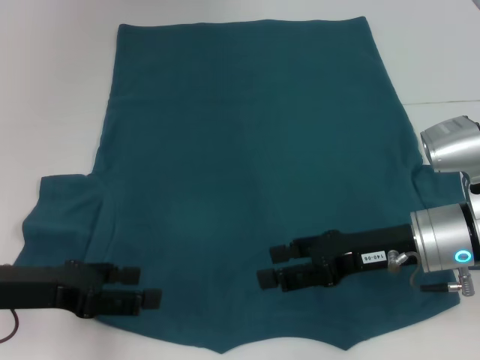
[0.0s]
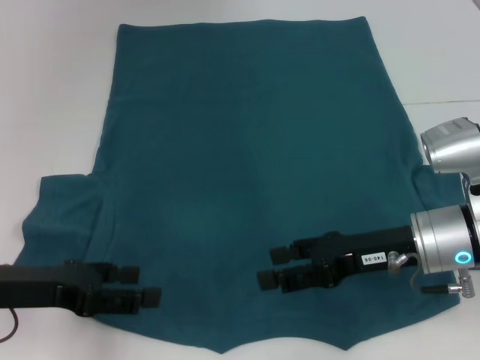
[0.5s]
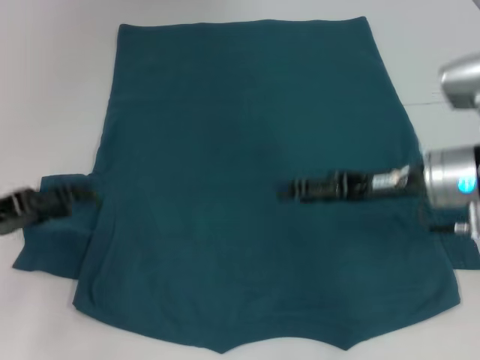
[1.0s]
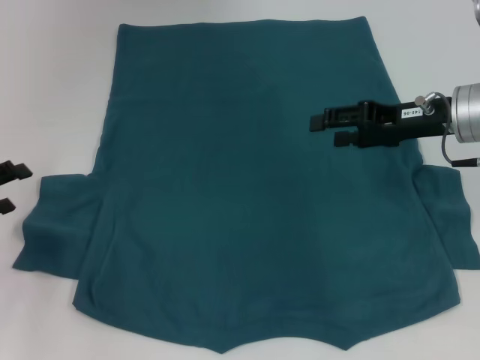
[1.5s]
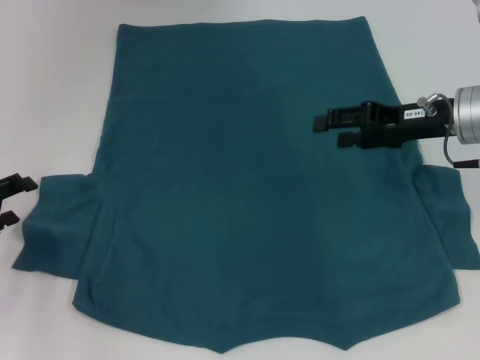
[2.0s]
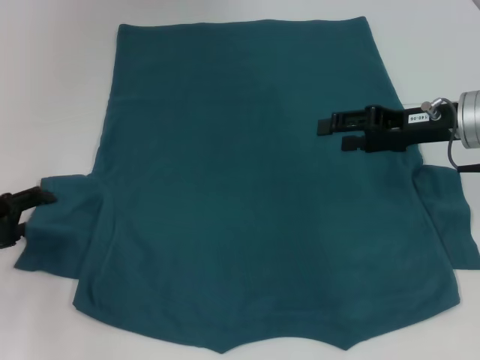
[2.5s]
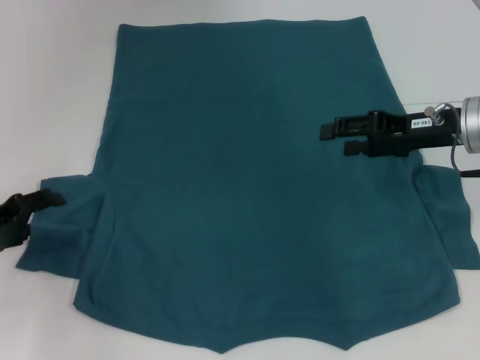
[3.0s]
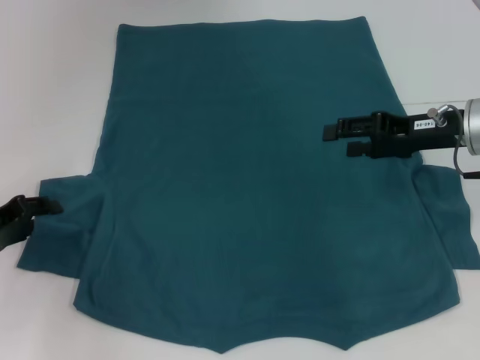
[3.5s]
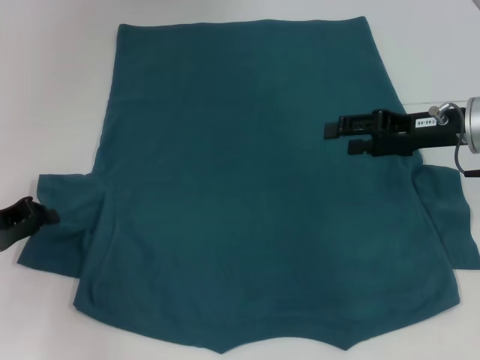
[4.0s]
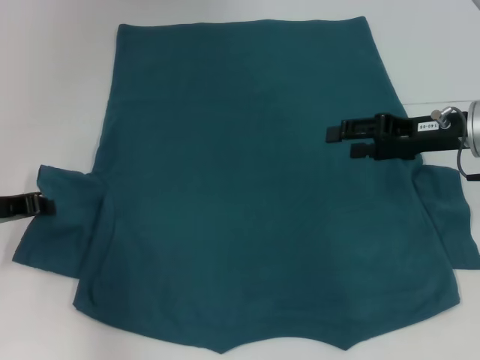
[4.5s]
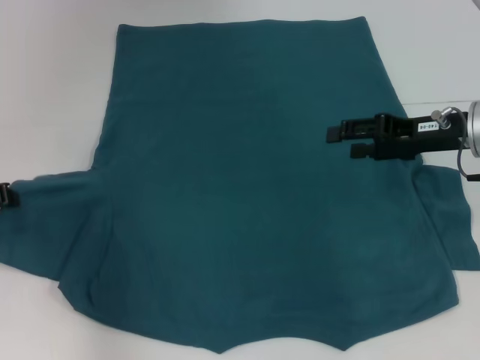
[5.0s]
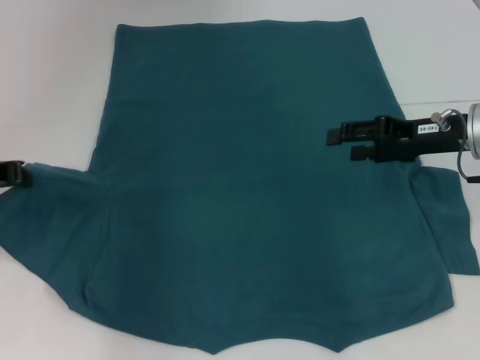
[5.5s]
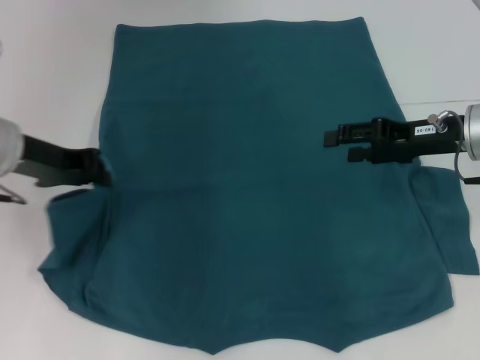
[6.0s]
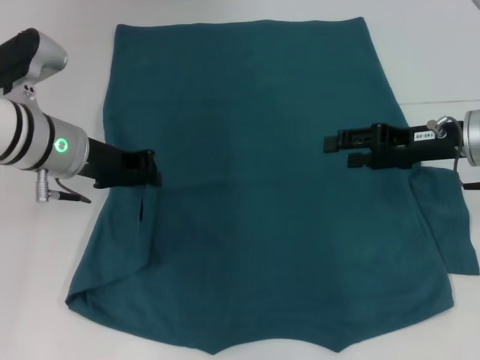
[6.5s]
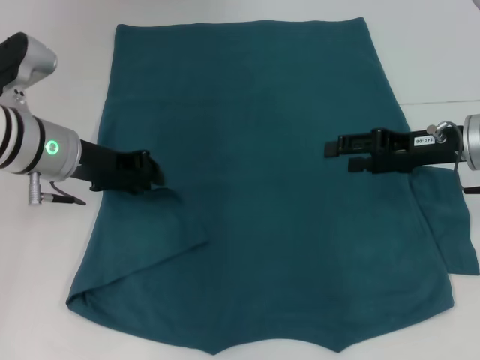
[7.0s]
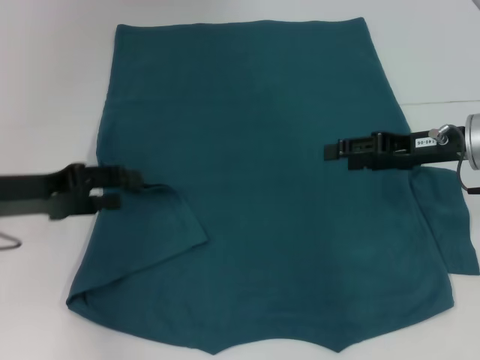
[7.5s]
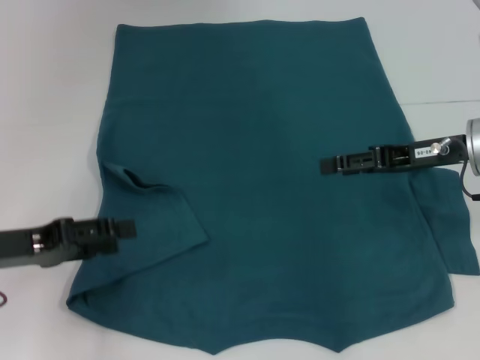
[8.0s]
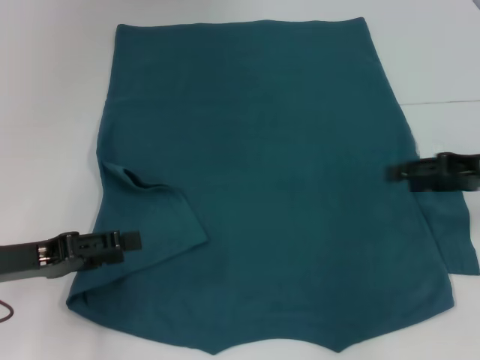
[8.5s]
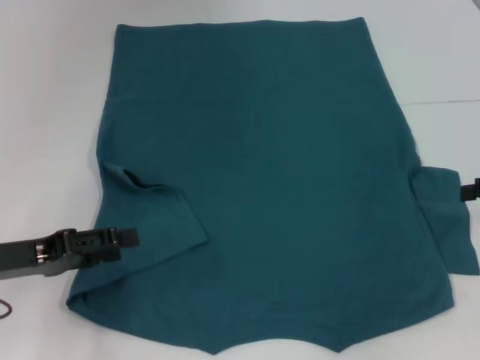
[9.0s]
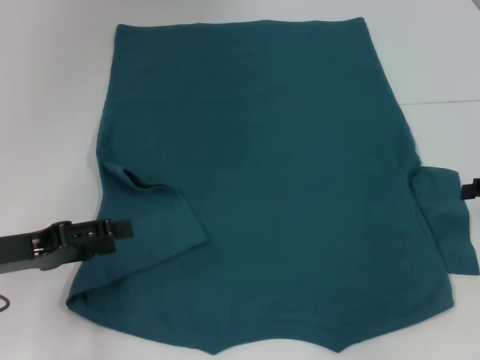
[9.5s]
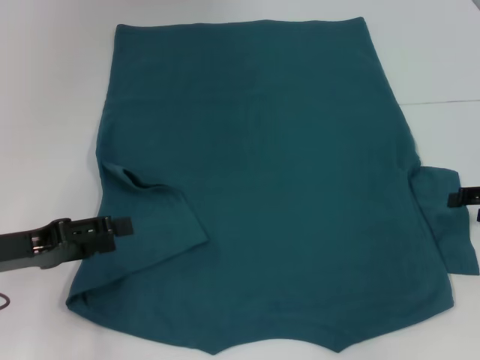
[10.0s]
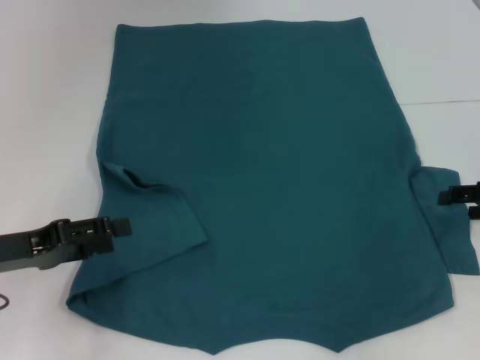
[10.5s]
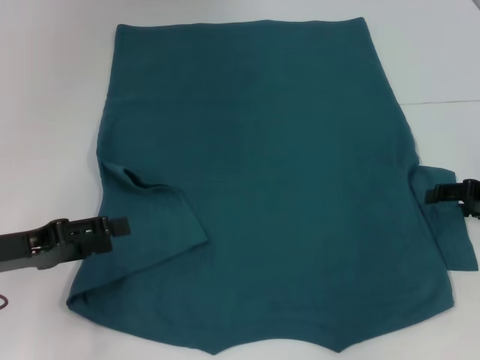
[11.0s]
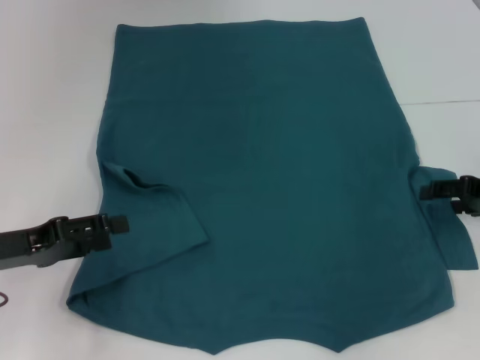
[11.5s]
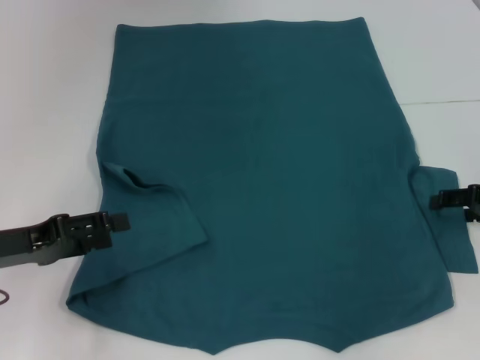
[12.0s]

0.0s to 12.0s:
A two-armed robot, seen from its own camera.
Step, 0.0s to 7.0s: Fold the bottom left sleeve with your left hand.
0.0s to 2.0s: The right gripper moves forward, upward and to the right, approximately 10 cm; the left gripper moves to the left, about 10 cm.
2.0s to 4.0s: The left gripper closes up.
4.0s to 6.0s: The left gripper goes about 15 cm upward and to the right.
6.0s to 8.0s: The left gripper moves backward, downward and to the left, roughly 10 cm, and opens up.
8.0s to 10.0s: The right gripper travels to the right by about 10 cm.
10.0s to 12.0s: The grippers make only small movements.

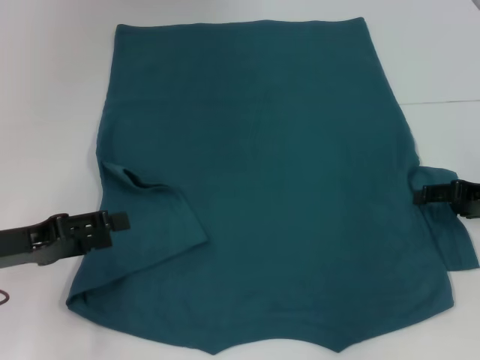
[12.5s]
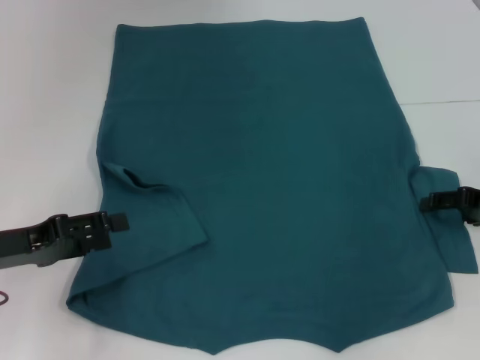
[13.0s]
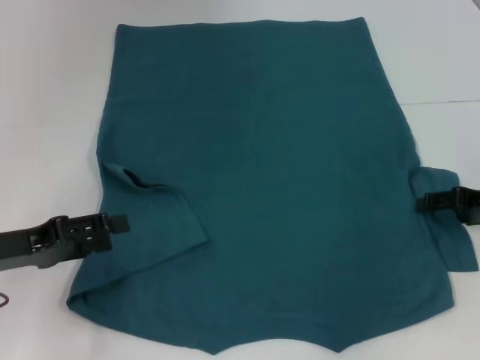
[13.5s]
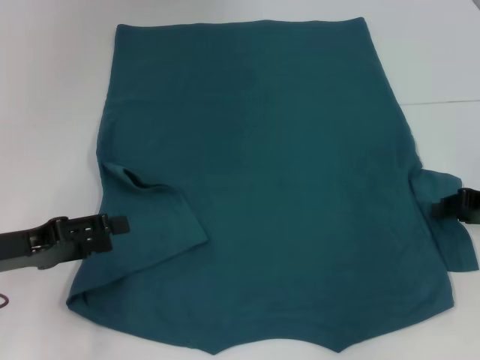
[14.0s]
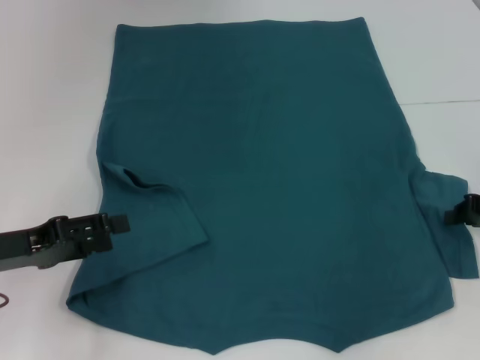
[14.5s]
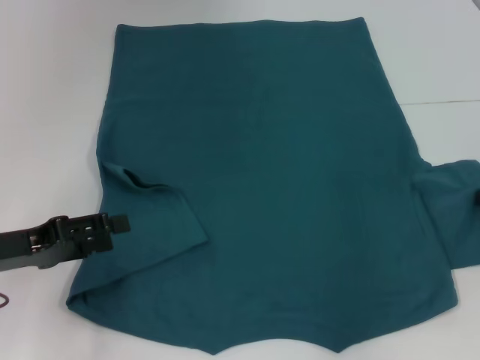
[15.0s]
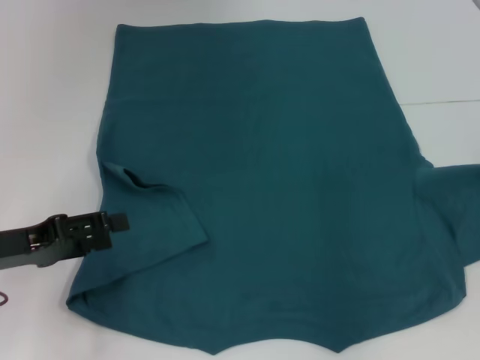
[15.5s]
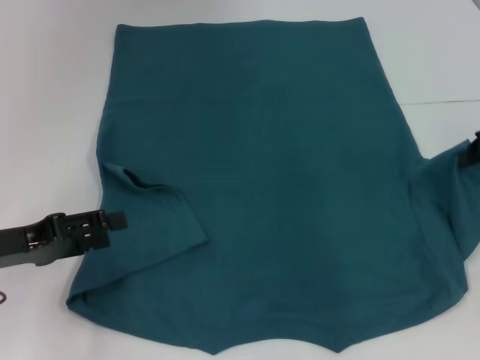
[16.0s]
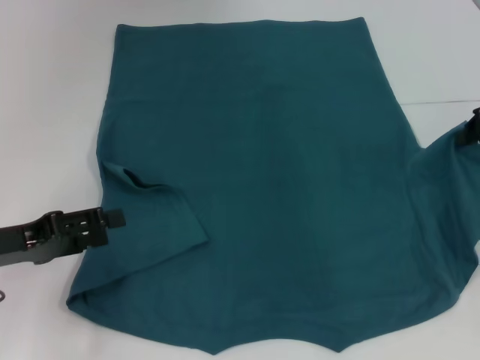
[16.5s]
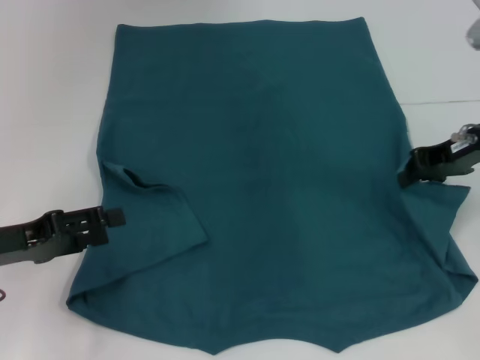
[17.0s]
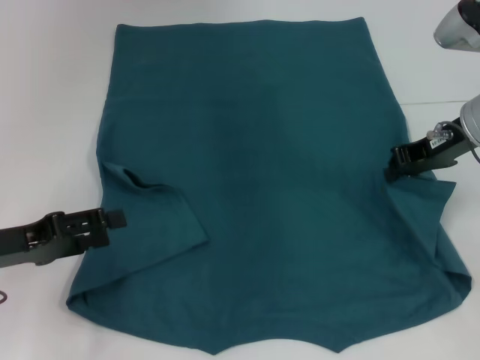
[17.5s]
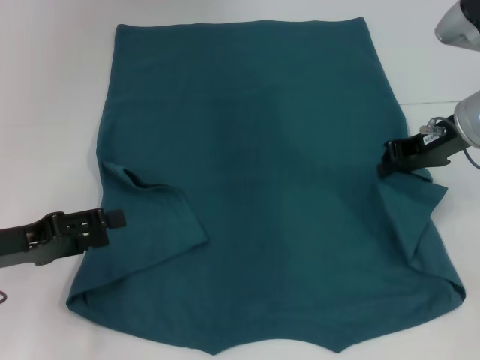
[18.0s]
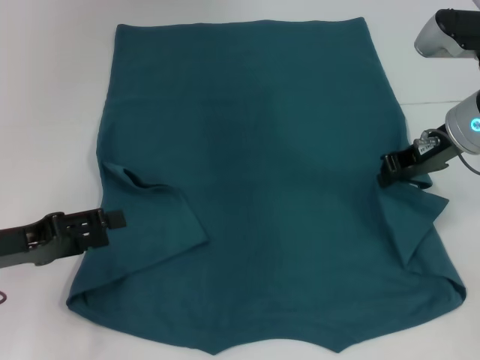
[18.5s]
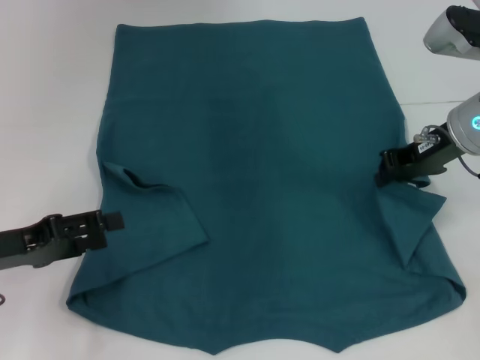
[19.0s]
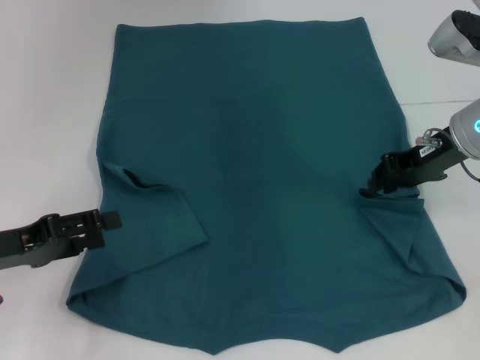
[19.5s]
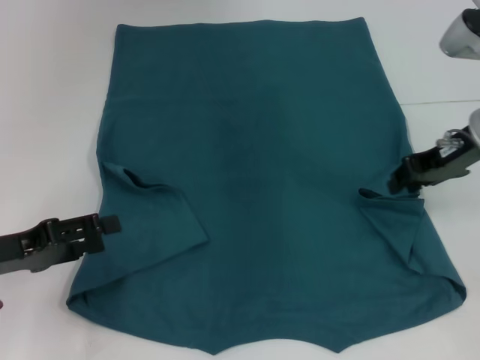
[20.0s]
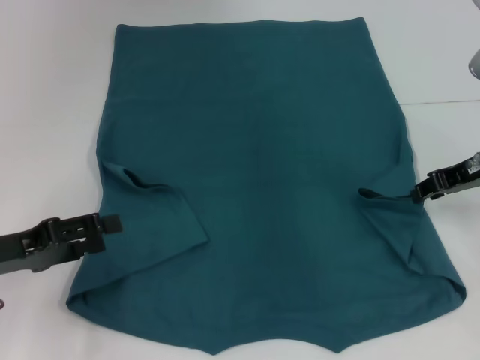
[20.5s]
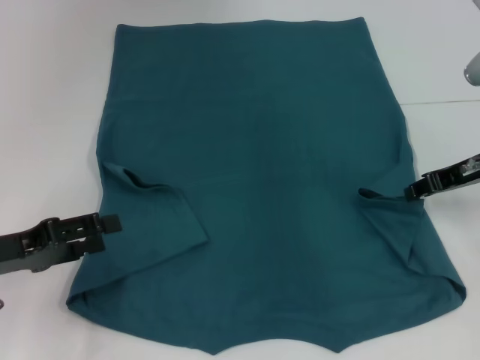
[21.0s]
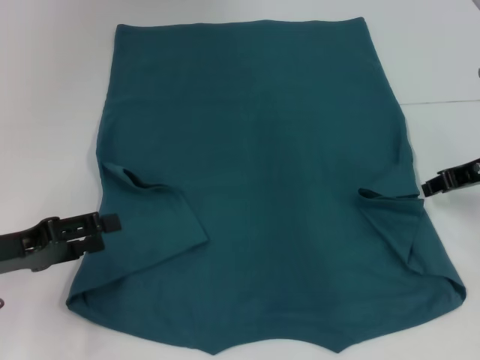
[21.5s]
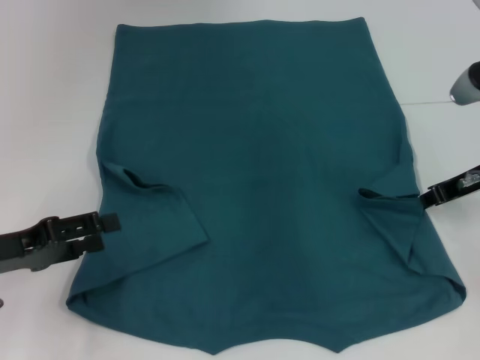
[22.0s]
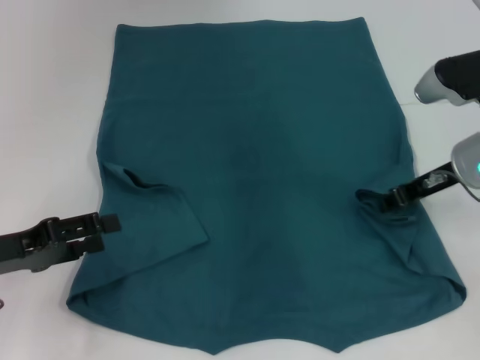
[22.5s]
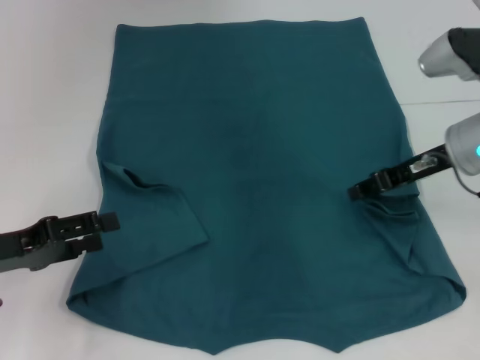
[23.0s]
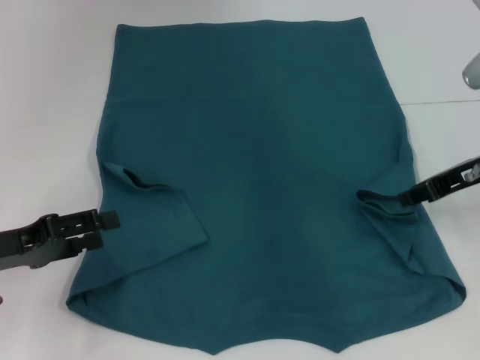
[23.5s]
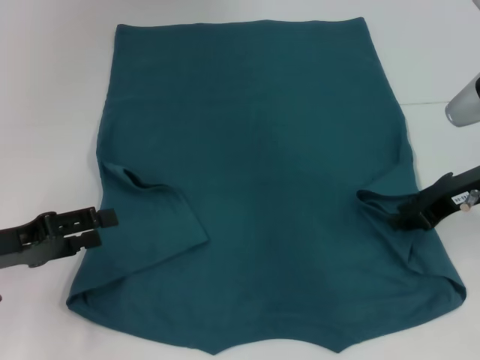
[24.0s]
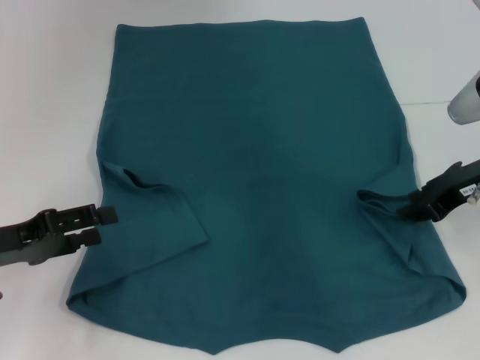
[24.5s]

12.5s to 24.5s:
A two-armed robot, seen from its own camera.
12.5s to 14.5s: The right gripper closes its fingers.
14.5s to 16.5s: The right gripper shifts approximately 10 cm upward.
16.5s to 18.5s: The right gripper travels to the left by about 10 cm.
18.5s to 20.5s: The right gripper moves to the right, roughly 5 cm, and opens up.
20.5s to 22.5s: The grippers move only a little.

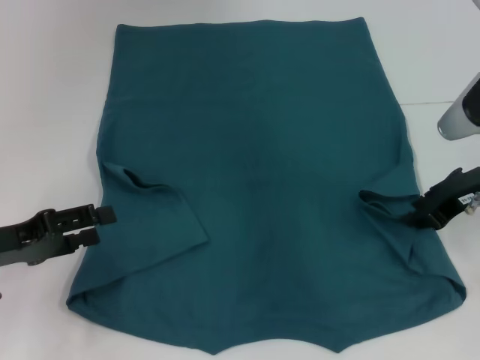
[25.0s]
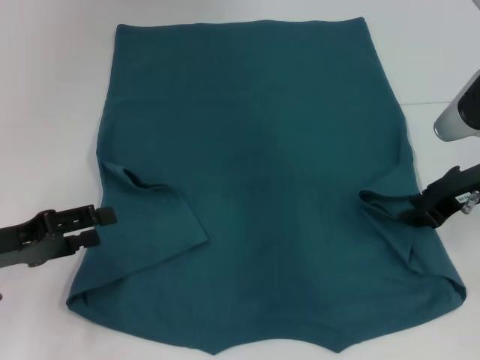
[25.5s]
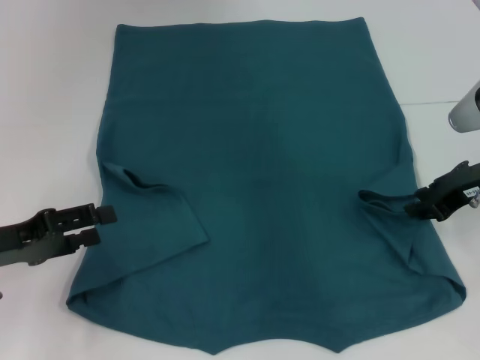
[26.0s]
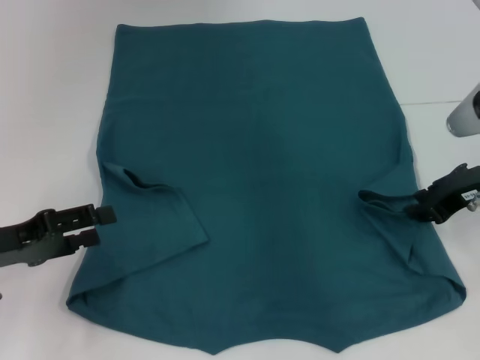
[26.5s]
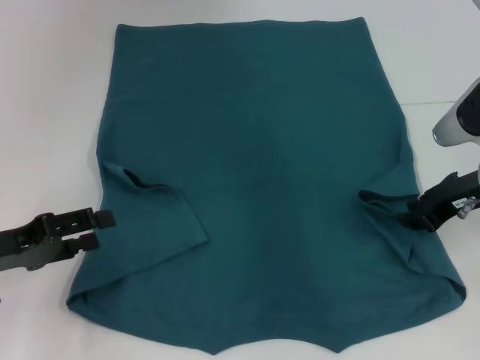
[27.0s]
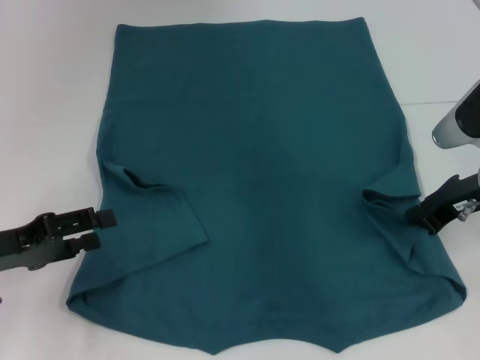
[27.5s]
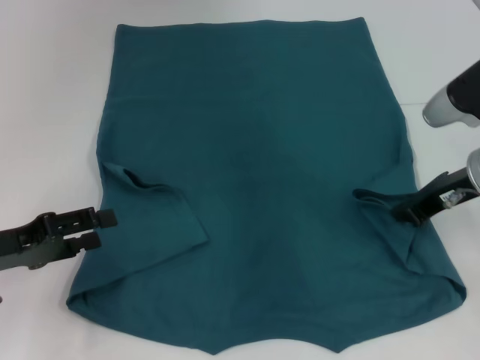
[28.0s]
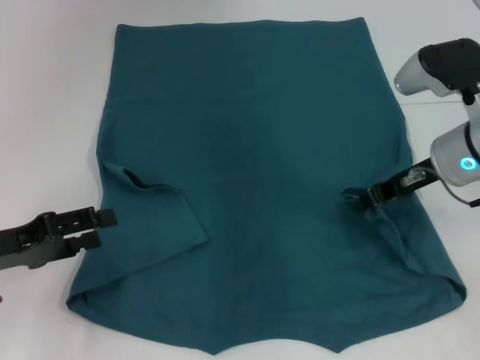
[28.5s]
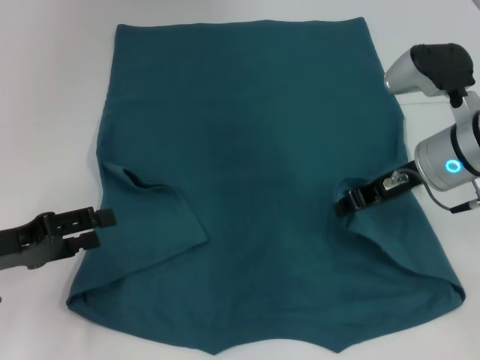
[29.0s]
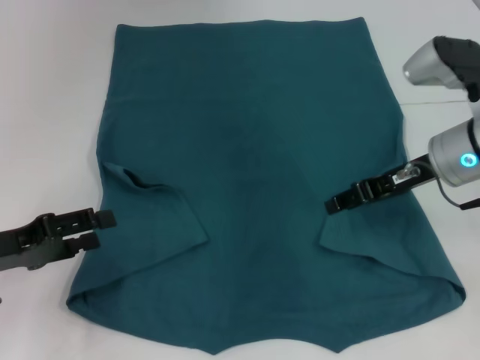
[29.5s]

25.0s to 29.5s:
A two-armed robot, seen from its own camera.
Step, 25.0s to 29.5s: Fold the bottom right sleeve to the right.
25.0s to 27.0s: The two grippers keep their place.
27.0s to 29.5s: The right gripper changes place by about 5 cm.
